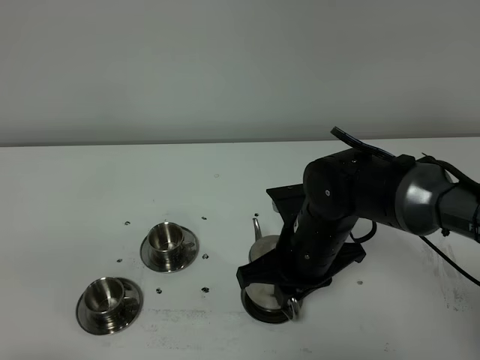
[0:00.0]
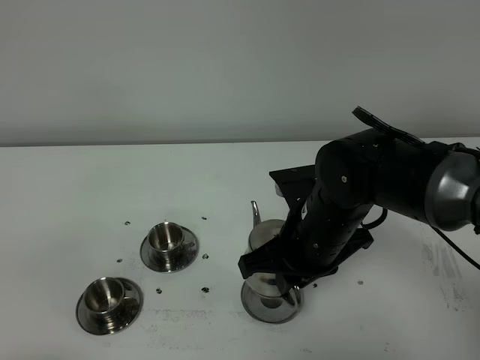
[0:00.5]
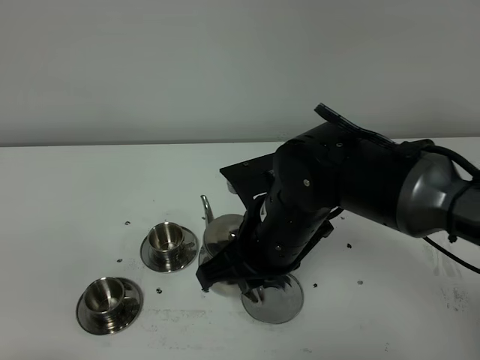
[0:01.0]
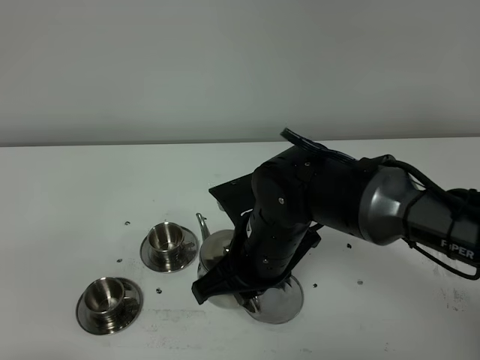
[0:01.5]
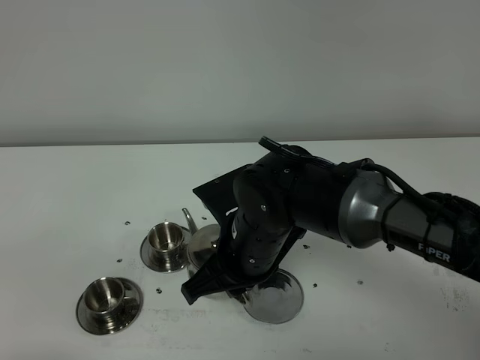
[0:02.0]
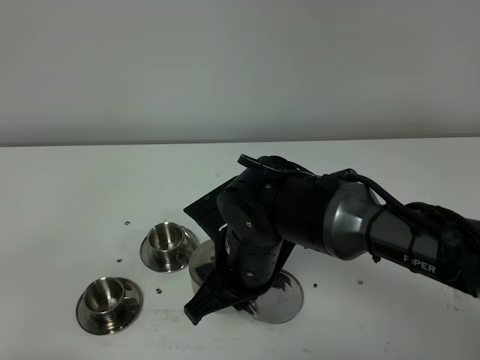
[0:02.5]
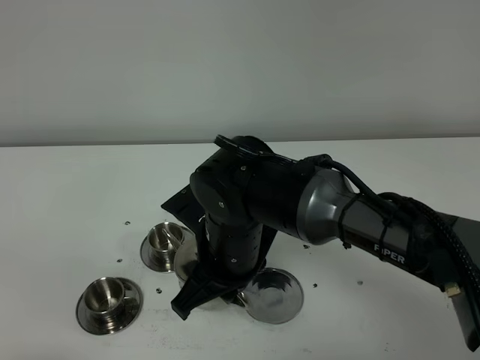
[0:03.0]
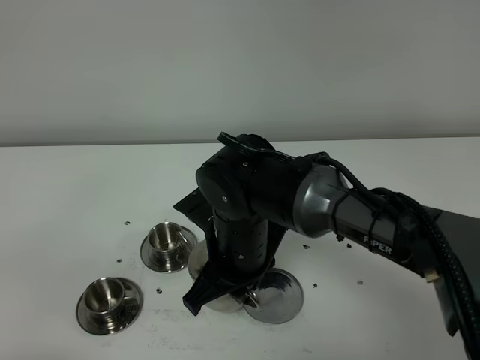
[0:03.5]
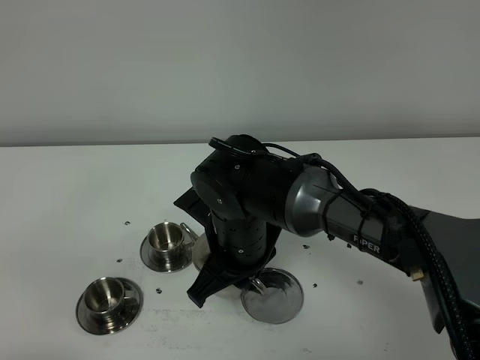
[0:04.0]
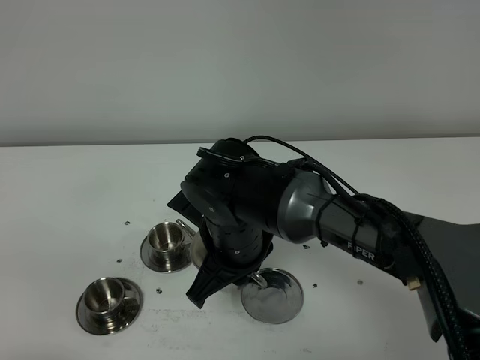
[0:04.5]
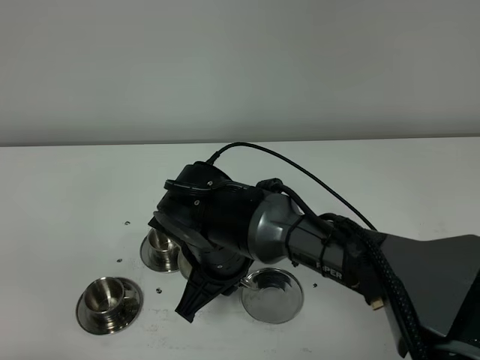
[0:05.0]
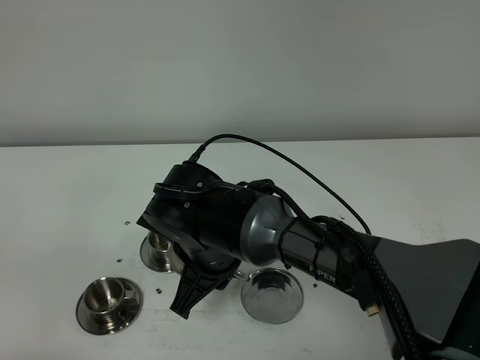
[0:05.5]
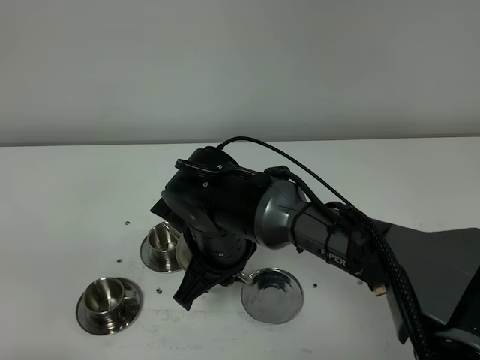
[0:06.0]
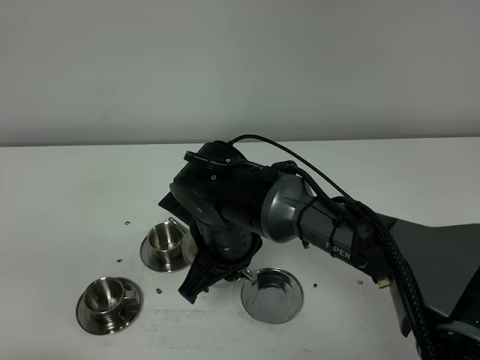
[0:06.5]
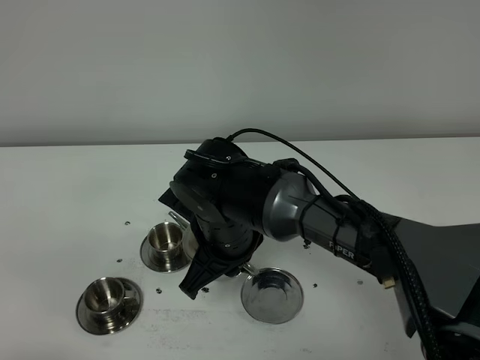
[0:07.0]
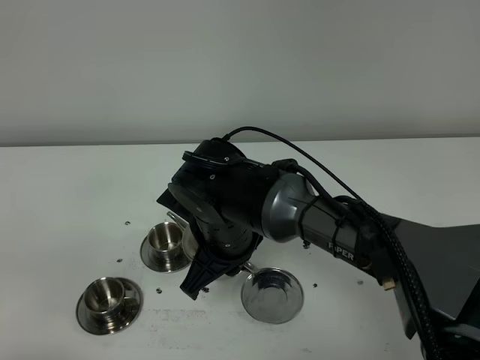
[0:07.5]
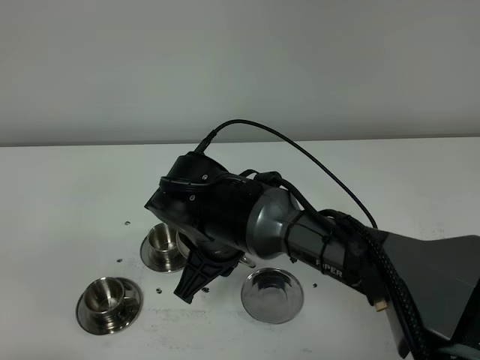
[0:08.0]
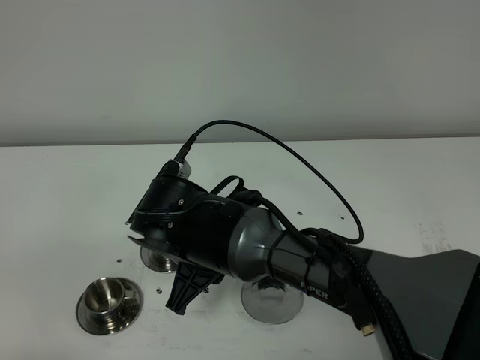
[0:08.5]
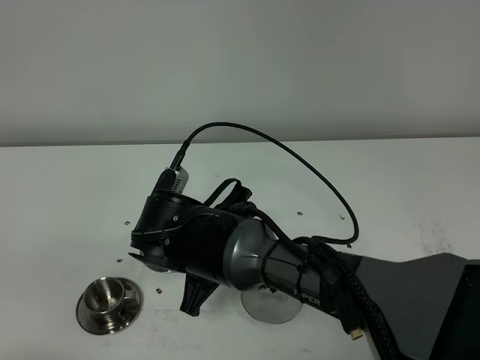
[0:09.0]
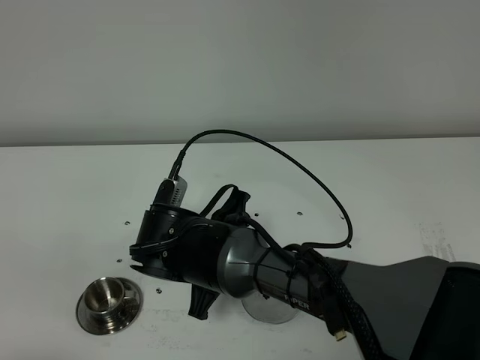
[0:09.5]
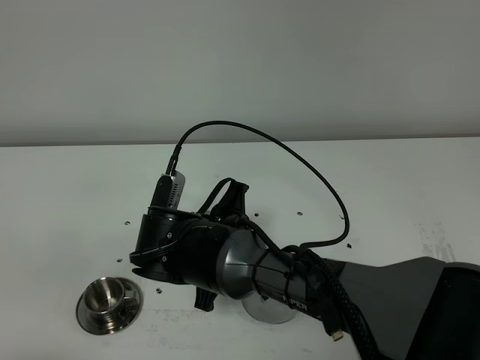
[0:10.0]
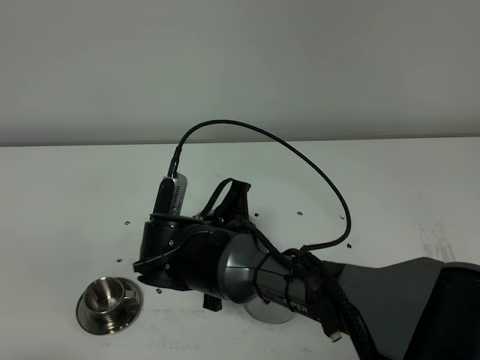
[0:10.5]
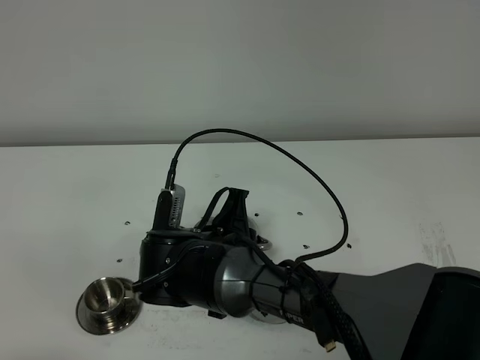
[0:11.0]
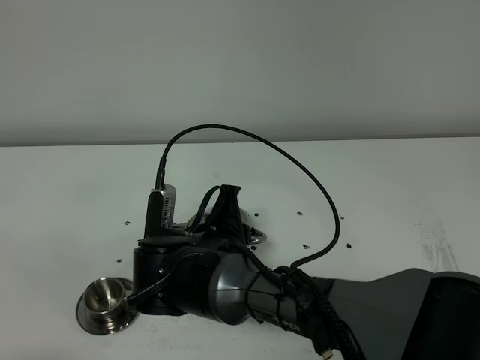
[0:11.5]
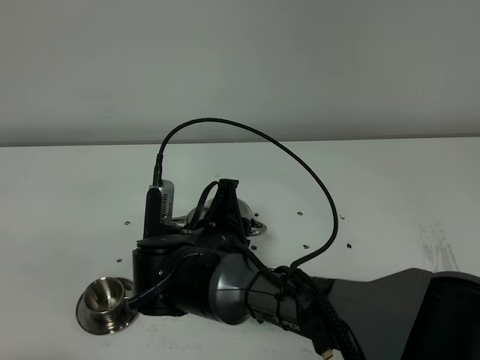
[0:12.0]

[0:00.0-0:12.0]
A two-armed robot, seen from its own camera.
Task of the whole recording: grasp the stainless steel teapot and pour the tea into the two stainless steel teacups one by one, put the stainless steel teapot back in its original place.
0:00.0 to 0:02.0: The right gripper travels to the left by roughly 5 cm.
0:02.0 to 0:04.0: The grippers move only a little.
0:04.0 to 0:08.0: The grippers stay close to where they were, moving slightly.
0:10.0 to 0:12.0: There are only small adjustments of the grippers.

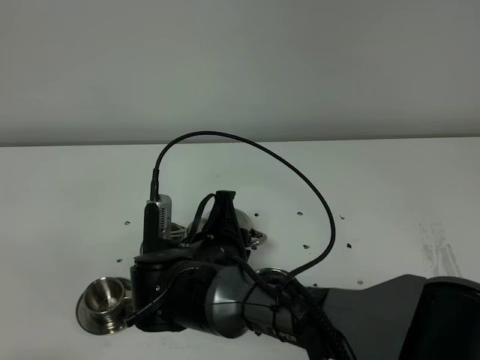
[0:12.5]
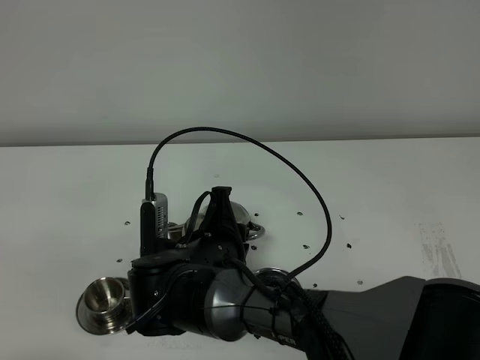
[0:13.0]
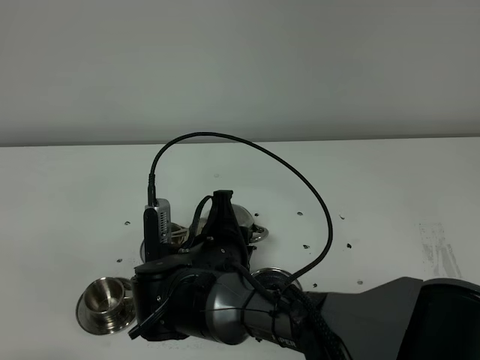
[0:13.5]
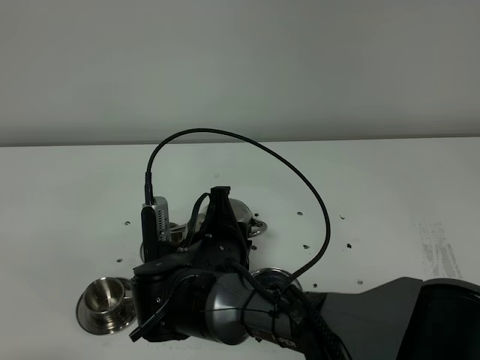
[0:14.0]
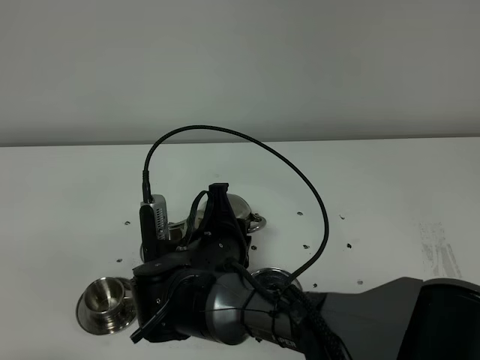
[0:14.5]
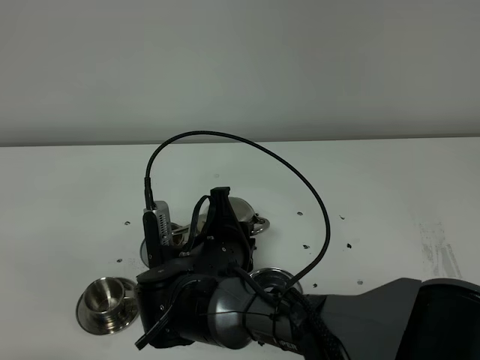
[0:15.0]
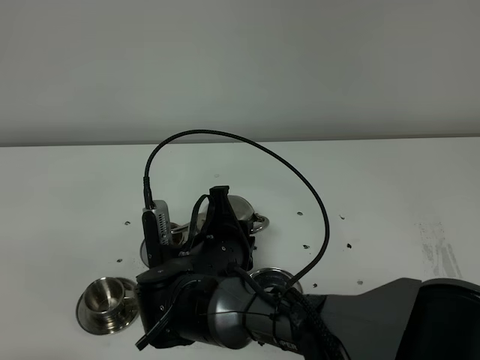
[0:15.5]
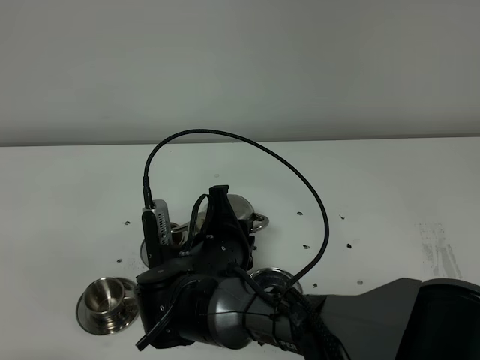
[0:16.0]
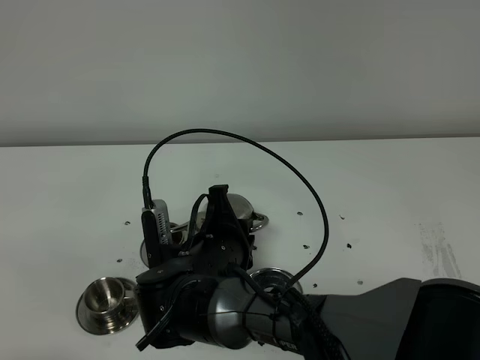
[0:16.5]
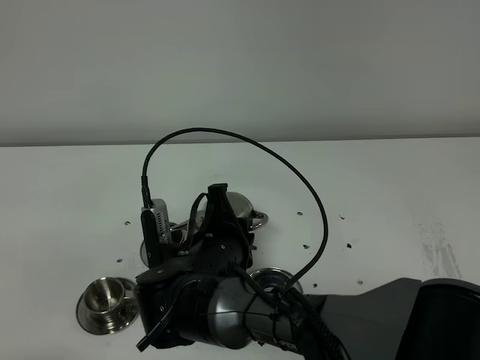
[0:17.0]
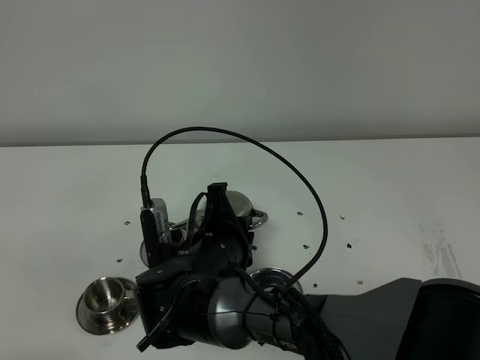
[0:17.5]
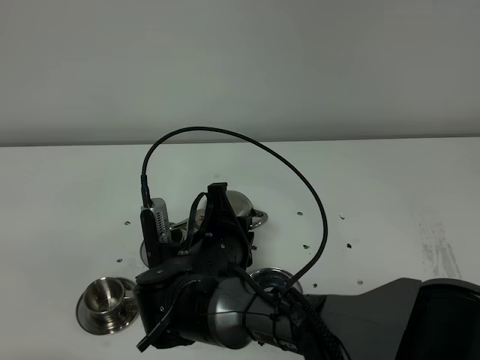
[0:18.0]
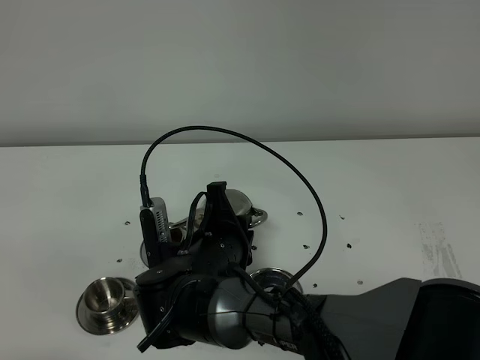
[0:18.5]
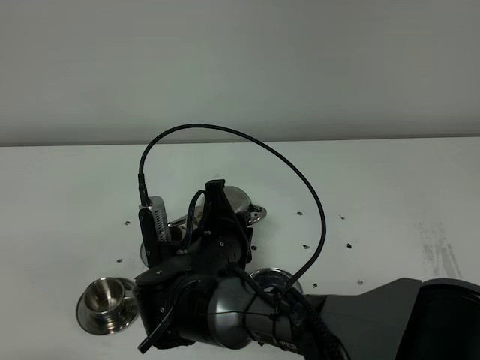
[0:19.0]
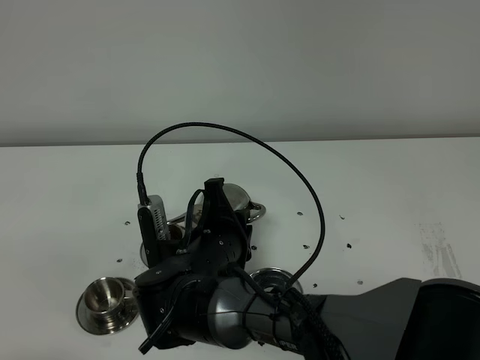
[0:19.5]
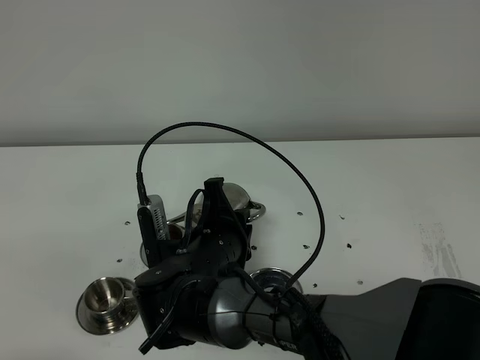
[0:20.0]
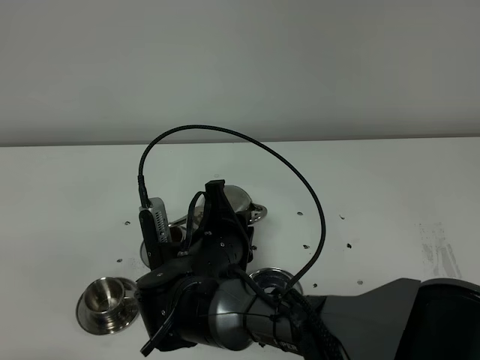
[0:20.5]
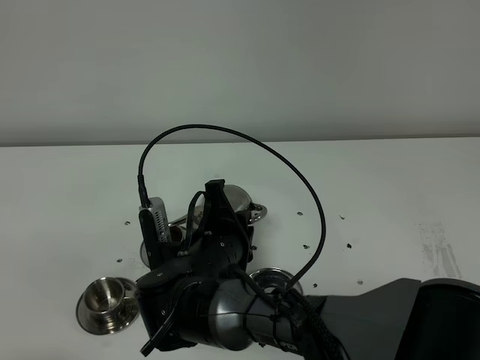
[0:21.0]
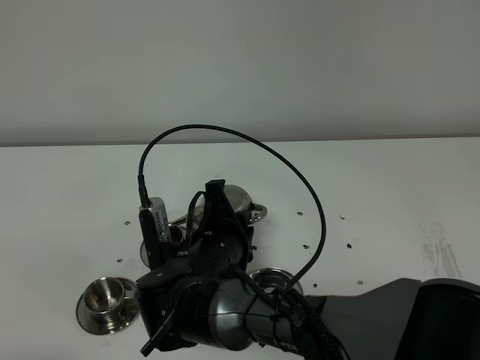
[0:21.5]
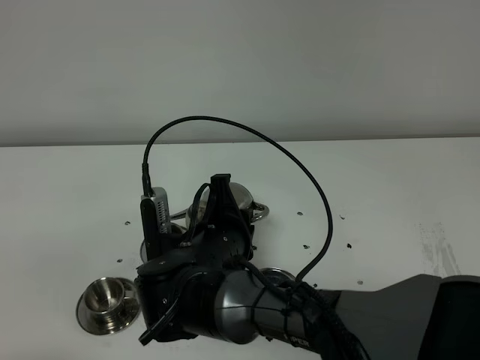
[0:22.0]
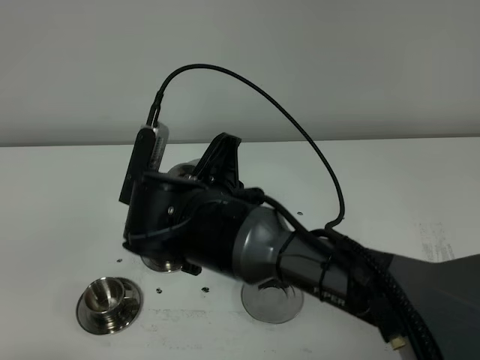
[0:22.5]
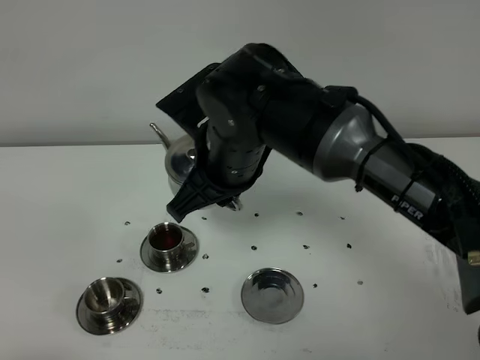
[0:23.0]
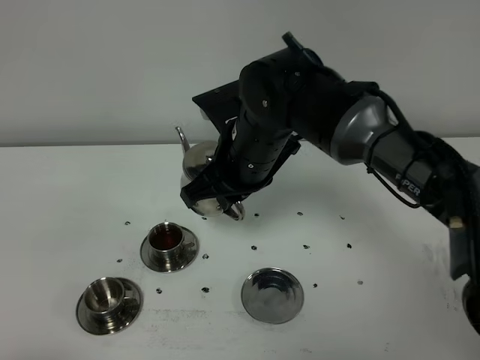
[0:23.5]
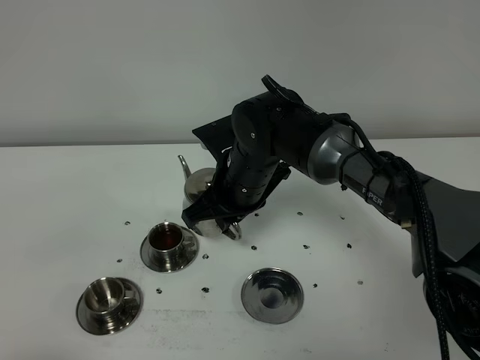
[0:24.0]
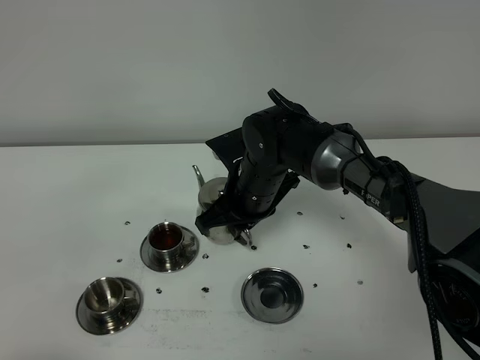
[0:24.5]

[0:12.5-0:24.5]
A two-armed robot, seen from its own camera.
Task of the whole recording: grasp the stainless steel teapot and pour the tea into the two stainless steel teacups one by one, put the stainless steel teapot back in its original place.
0:12.5 to 0:14.5: The grippers move only a little.
0:14.5 to 0:18.5: Neither gripper changes place.
0:18.5 to 0:20.5: Both grippers stay put.
0:20.5 to 0:22.5: The right gripper travels upward by about 10 cm.
0:22.5 to 0:24.5: The right gripper moves forward, downward and to the right, approximately 15 cm.

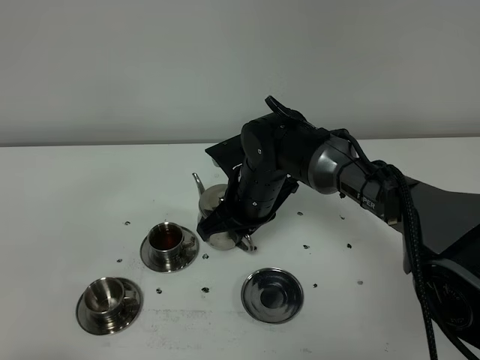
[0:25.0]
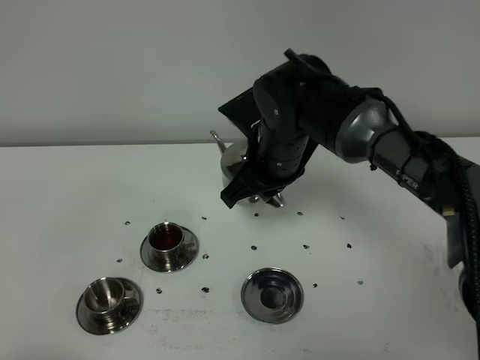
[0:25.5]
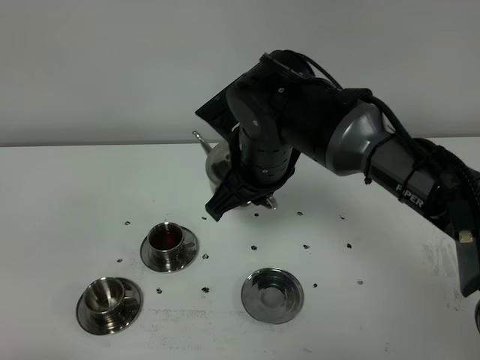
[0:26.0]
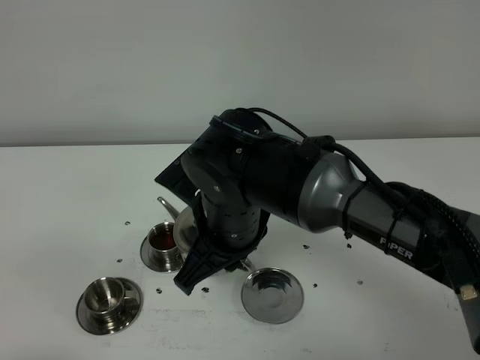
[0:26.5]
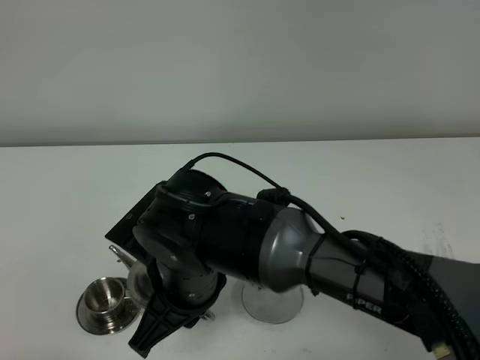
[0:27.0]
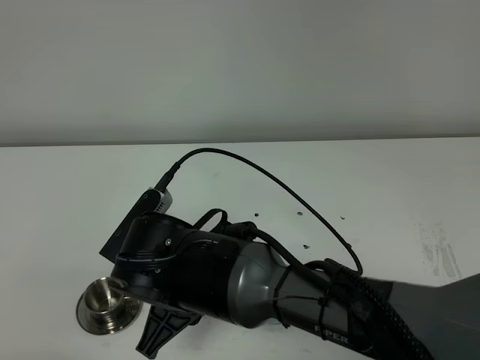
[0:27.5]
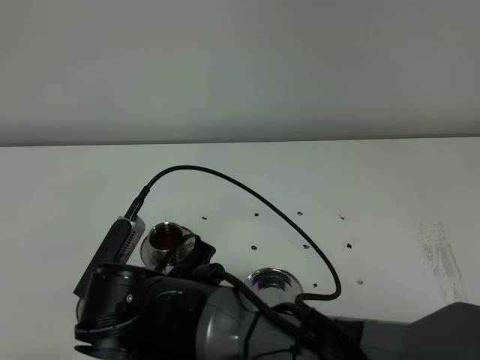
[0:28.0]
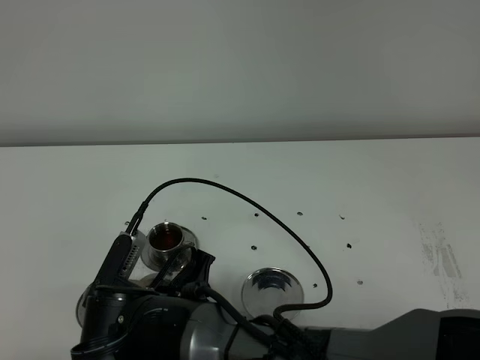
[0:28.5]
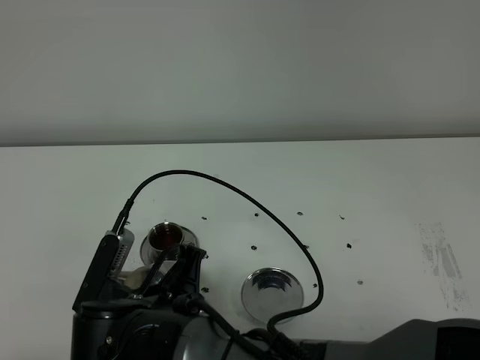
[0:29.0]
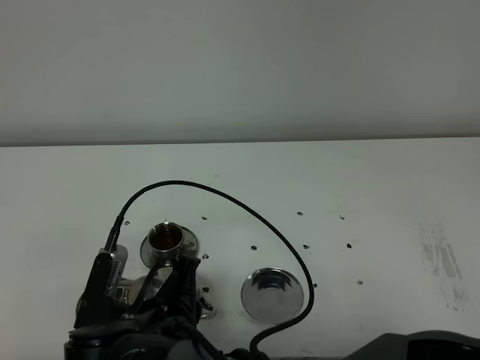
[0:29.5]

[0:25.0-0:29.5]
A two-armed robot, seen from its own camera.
Task of the whole recording: grasp the stainless steel teapot and pour the tea into the two stainless steel teacups one by one, put the stainless steel teapot back in its original place.
0:25.0 to 0:27.0: The right gripper travels backward and to the left by roughly 20 cm.
0:27.0 to 0:29.5: The right gripper is displaced downward by approximately 5 cm.
